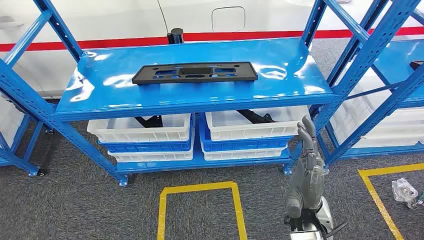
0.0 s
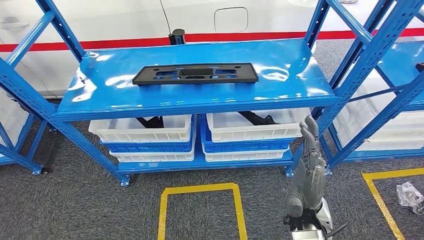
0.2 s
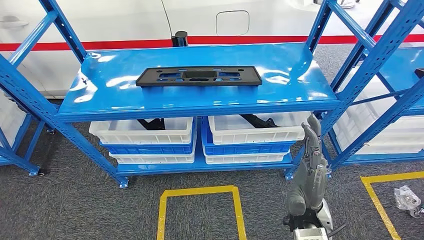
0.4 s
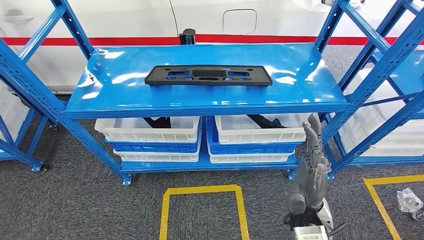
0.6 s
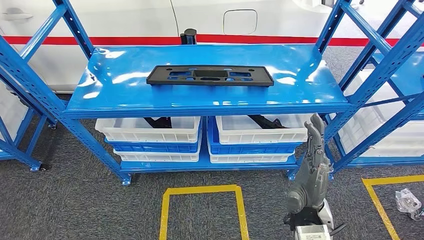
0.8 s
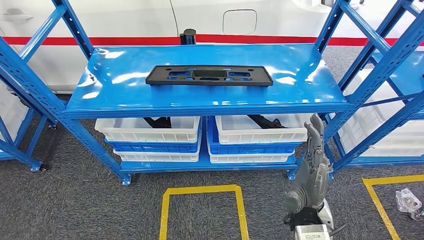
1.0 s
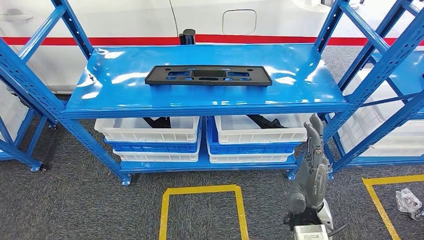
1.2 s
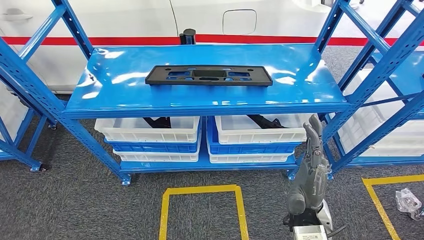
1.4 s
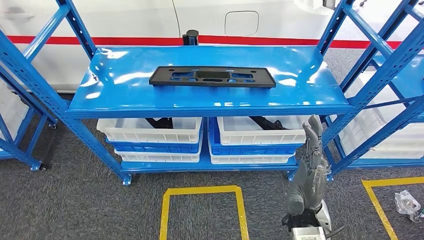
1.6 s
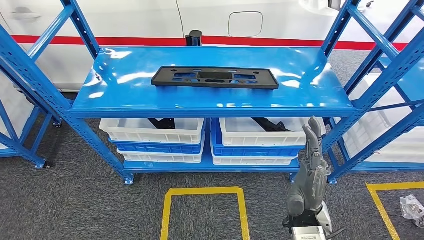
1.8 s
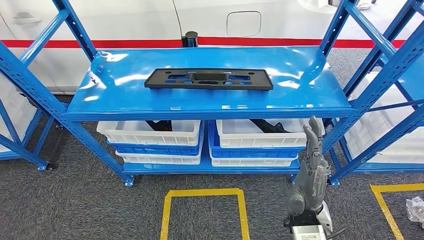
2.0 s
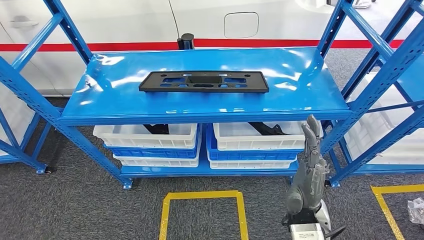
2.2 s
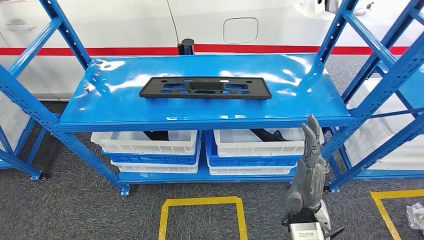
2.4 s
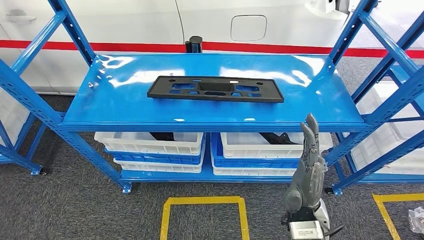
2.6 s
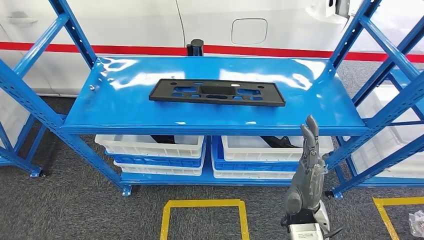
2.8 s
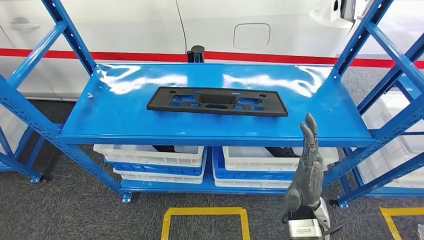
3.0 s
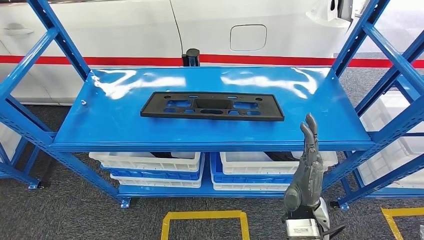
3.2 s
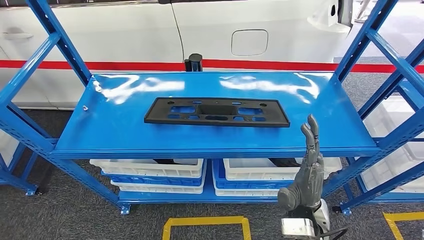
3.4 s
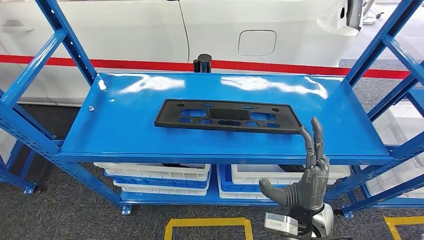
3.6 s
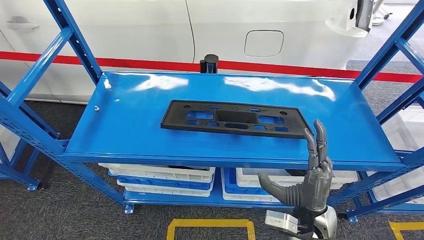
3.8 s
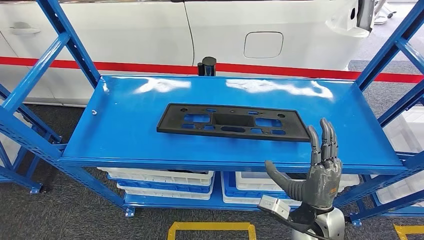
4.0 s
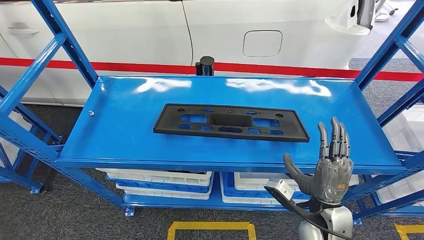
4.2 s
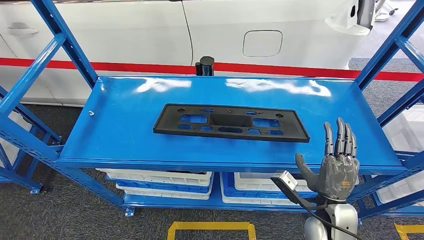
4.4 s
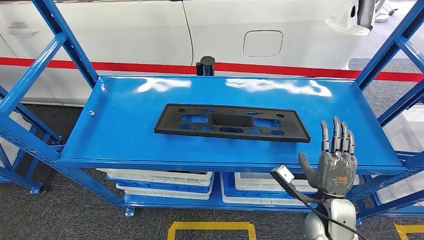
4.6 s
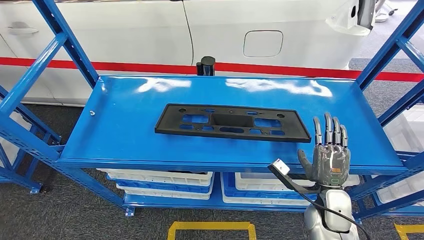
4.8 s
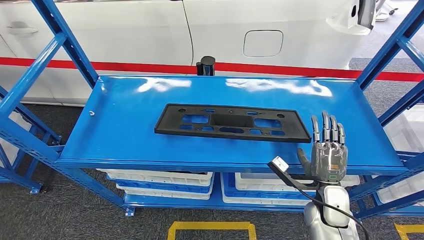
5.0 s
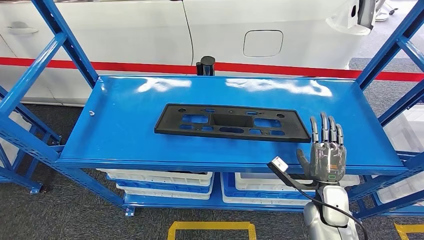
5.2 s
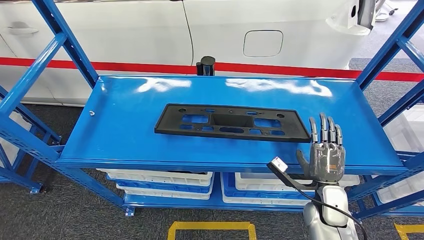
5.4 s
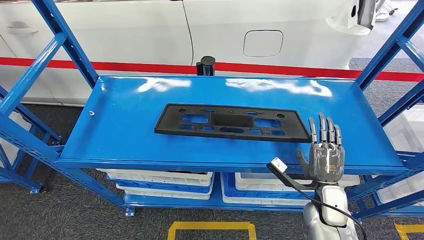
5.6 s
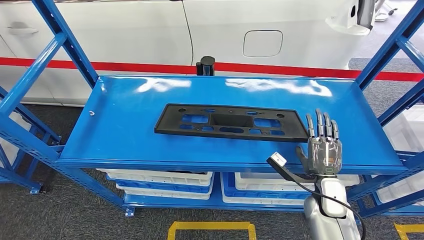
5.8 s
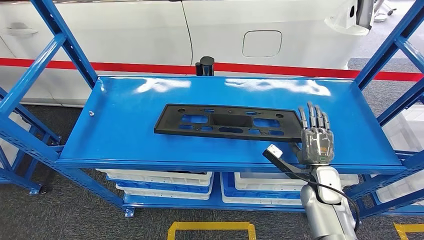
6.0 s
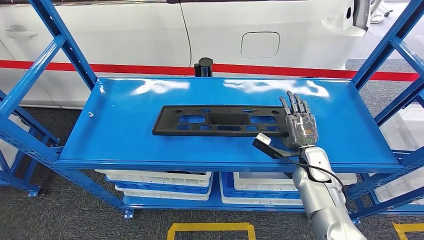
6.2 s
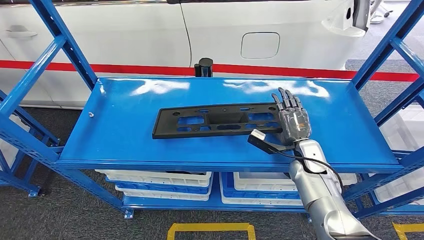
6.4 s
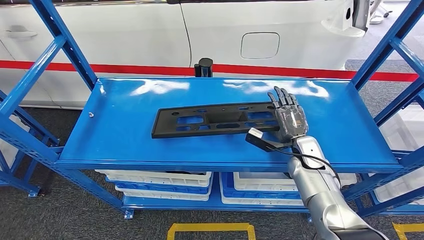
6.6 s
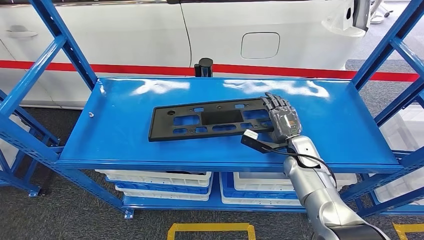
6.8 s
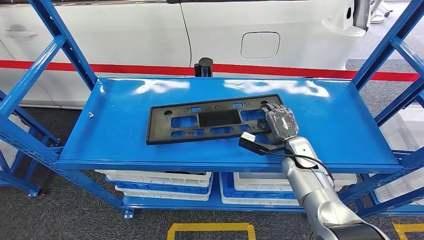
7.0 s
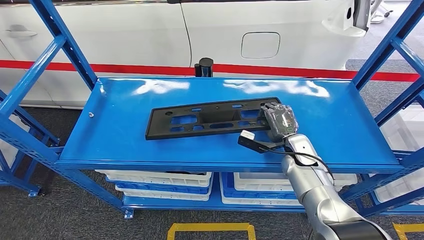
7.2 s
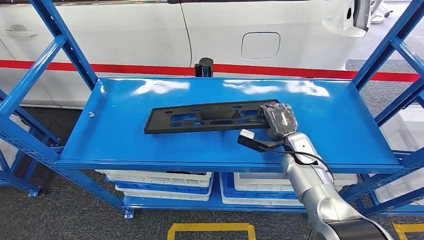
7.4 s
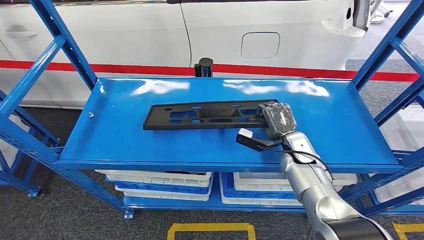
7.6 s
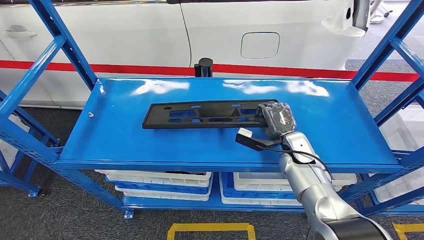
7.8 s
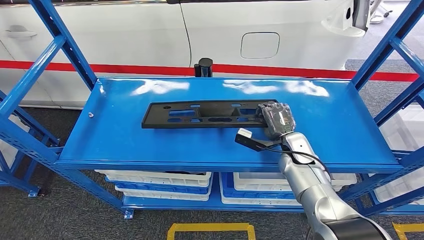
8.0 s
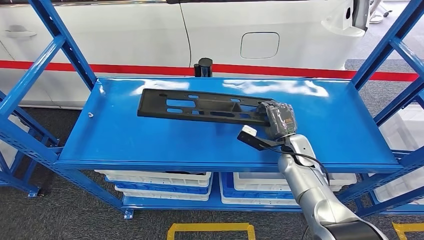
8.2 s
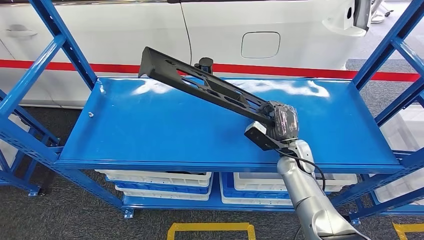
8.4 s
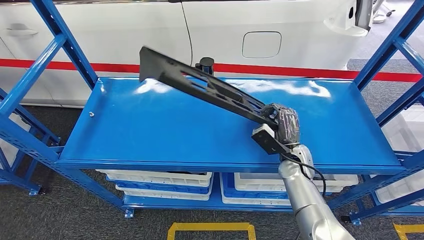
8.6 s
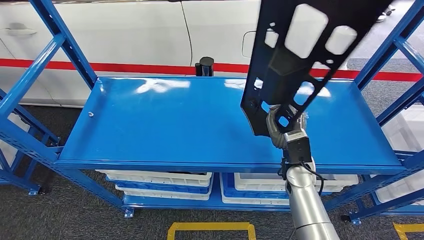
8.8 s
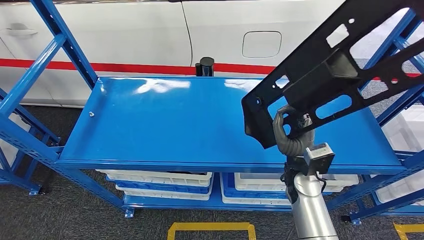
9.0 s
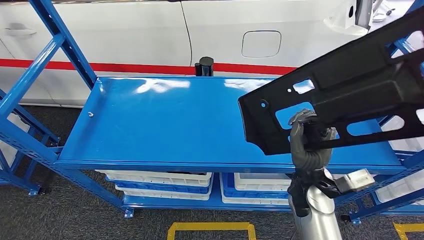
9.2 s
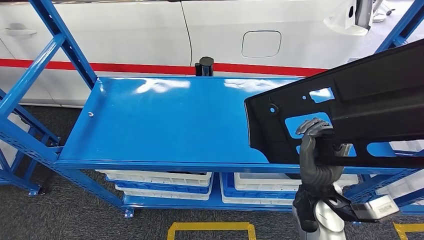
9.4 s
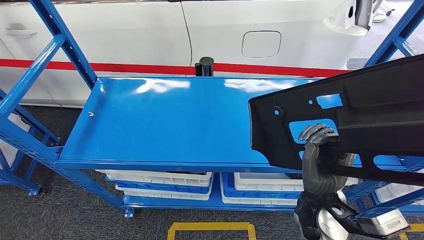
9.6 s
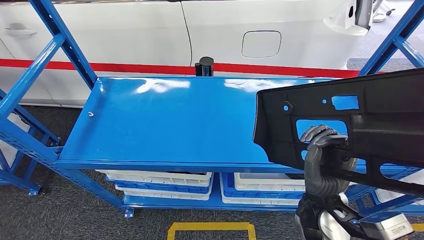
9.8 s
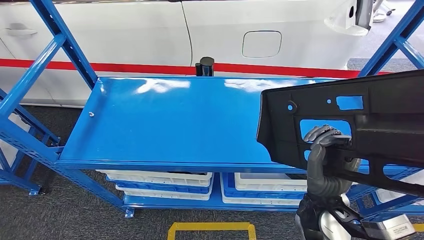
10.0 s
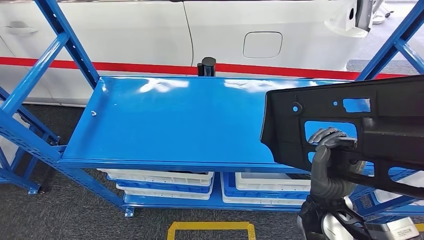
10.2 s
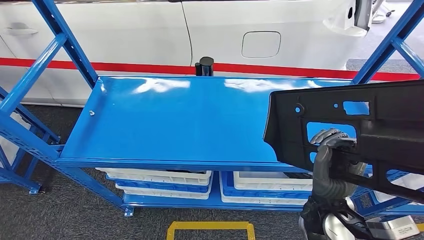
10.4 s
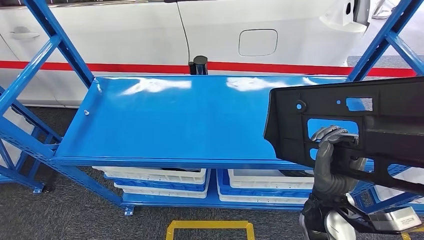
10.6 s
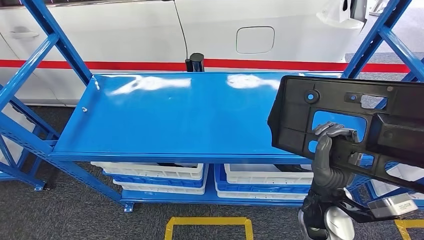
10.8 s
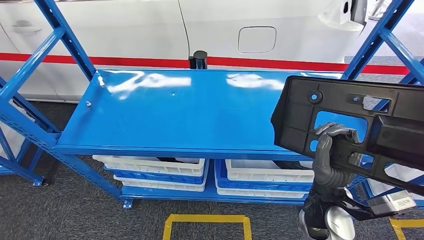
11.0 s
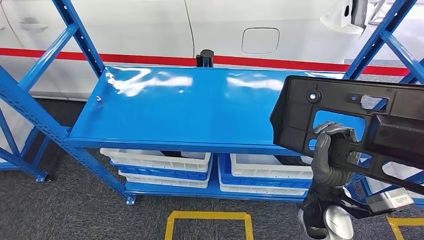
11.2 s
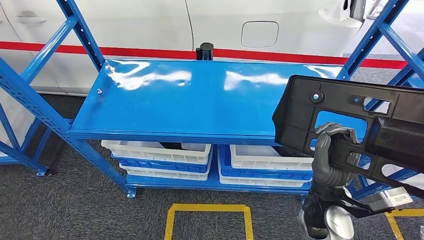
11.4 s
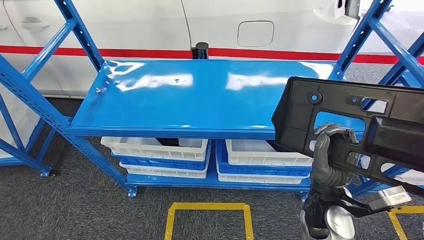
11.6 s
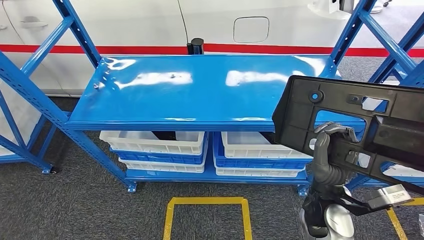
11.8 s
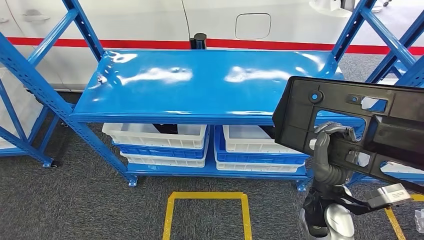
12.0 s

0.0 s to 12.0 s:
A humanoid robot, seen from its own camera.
Step, 0.0 to 10.8 s: Pick up the large material from the shelf.
4.4 to 6.0 s: The right hand shifts some 10 cm forward.

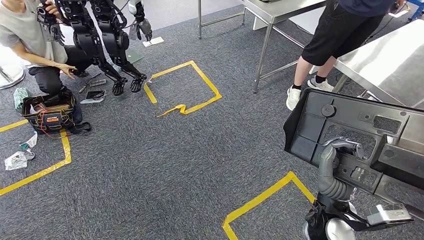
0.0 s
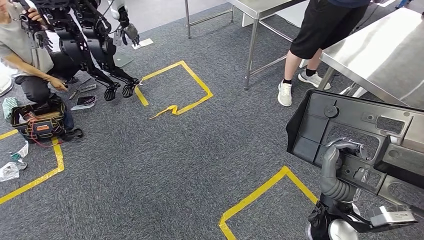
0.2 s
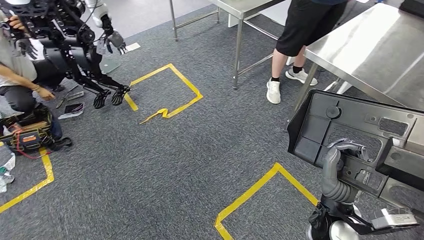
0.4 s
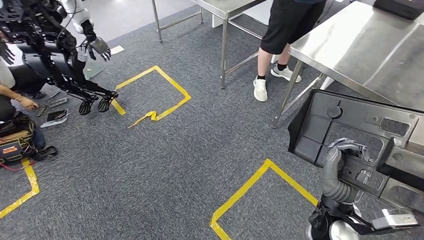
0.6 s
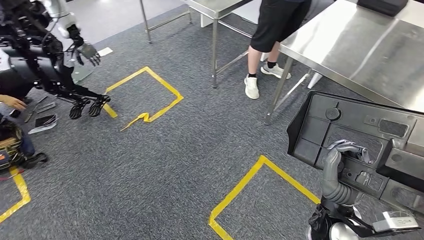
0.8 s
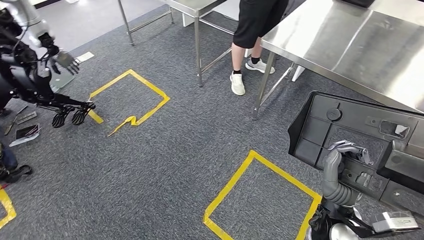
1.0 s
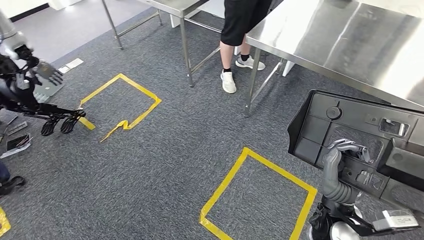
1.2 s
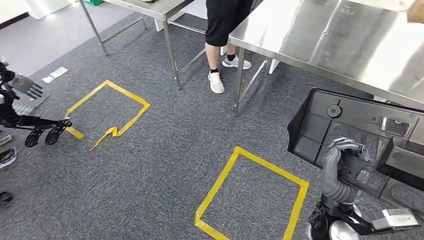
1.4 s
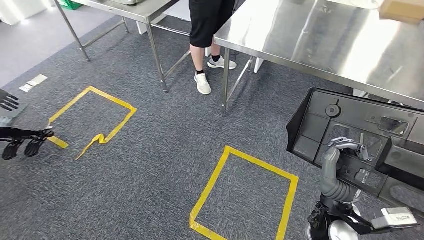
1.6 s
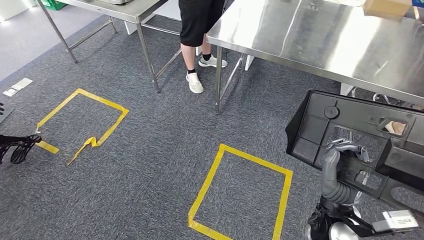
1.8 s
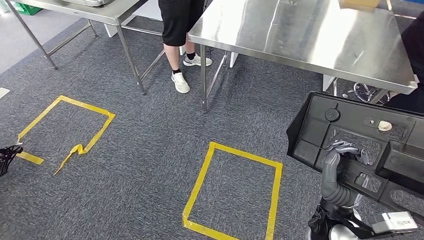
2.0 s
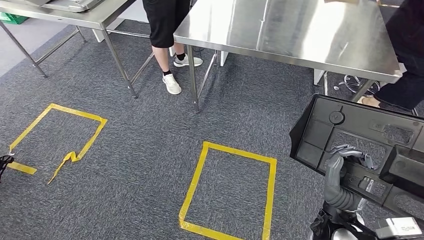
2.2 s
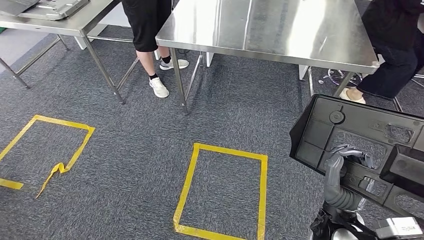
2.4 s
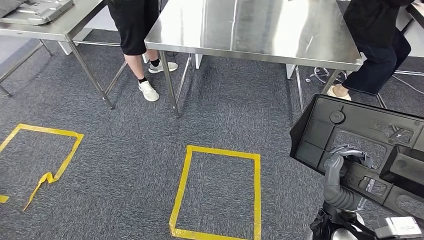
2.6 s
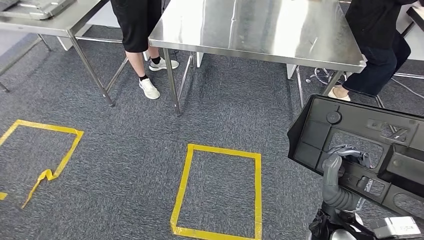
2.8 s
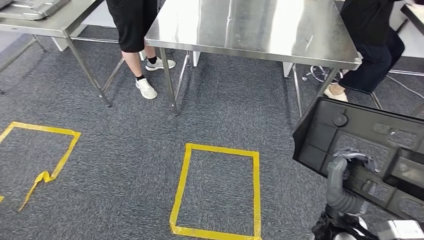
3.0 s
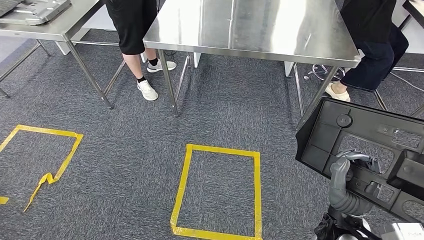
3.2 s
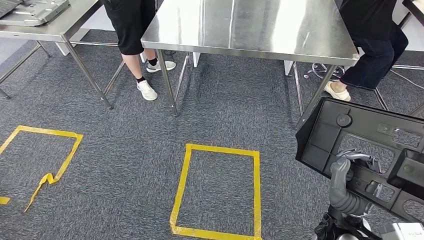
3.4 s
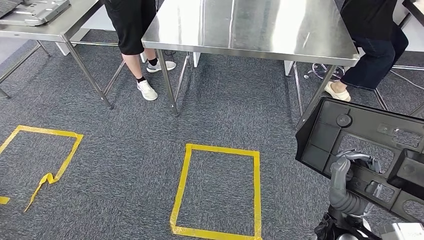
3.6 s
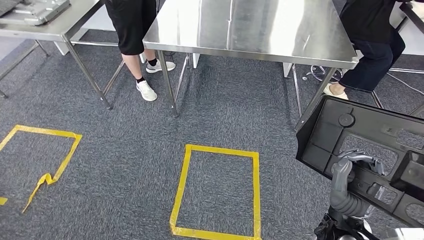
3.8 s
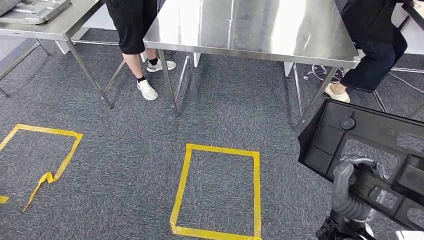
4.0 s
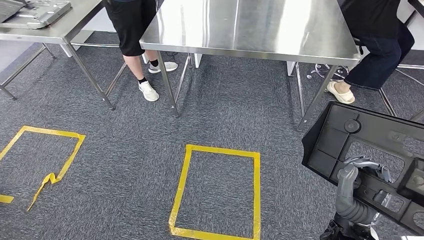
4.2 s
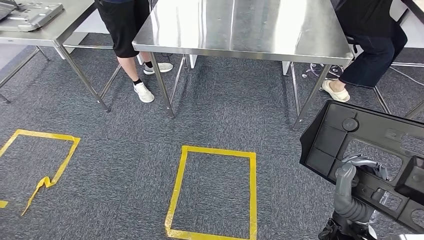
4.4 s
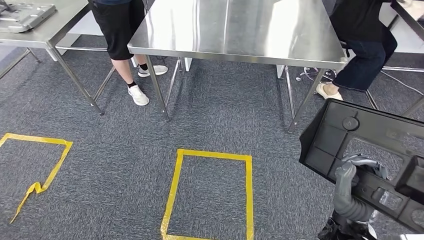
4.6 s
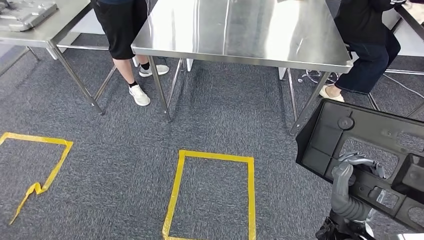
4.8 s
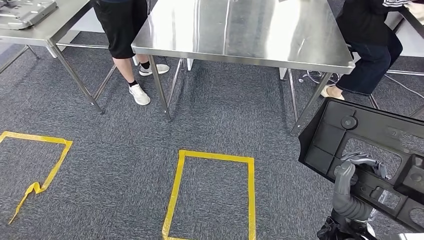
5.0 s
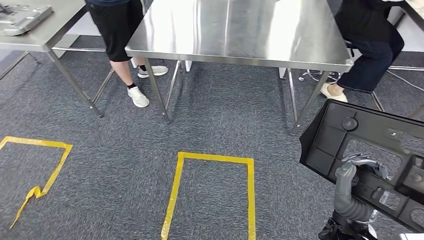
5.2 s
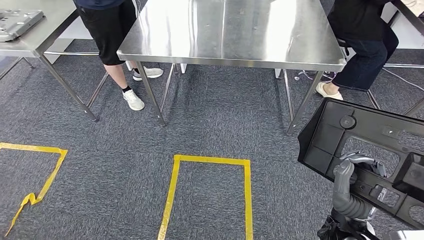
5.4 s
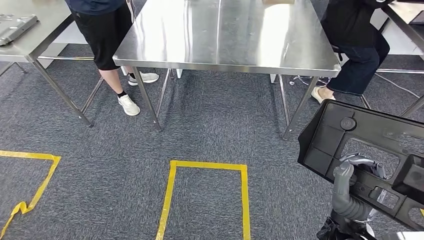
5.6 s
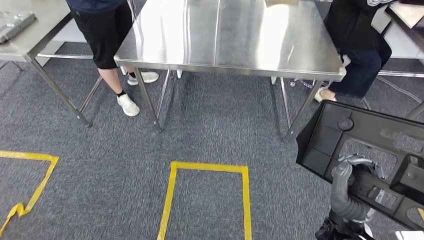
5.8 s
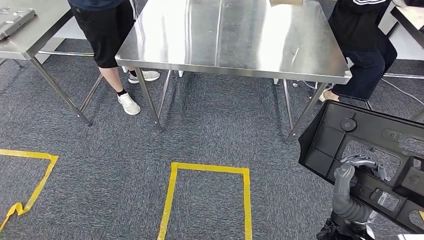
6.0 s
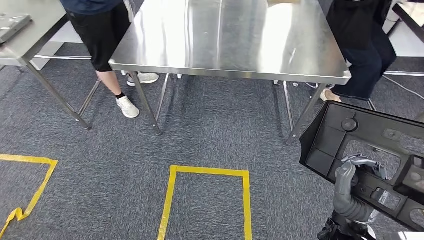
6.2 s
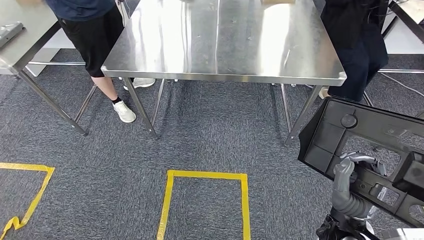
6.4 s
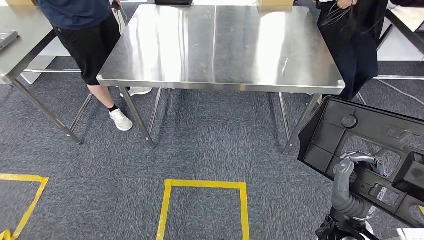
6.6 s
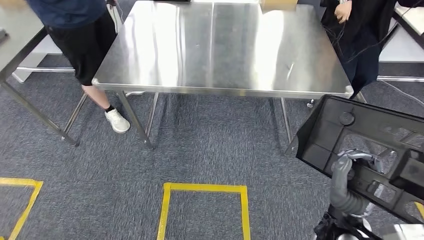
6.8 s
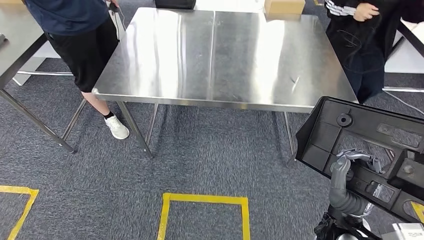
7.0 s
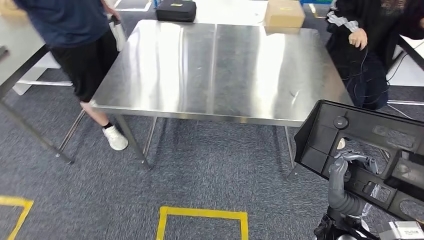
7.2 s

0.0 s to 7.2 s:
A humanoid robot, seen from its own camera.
Step, 0.0 to 4.4 s: Move the large material to the workbench.
